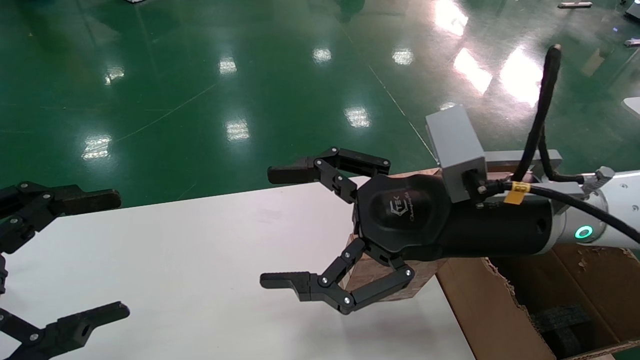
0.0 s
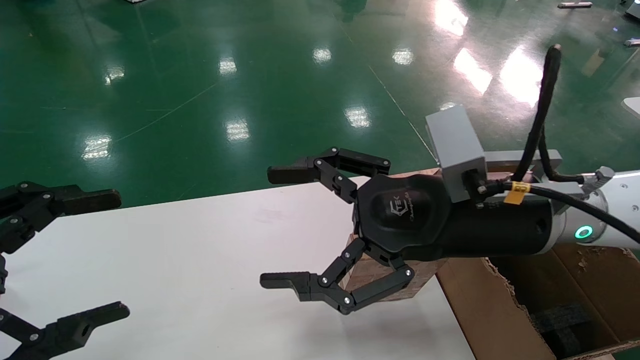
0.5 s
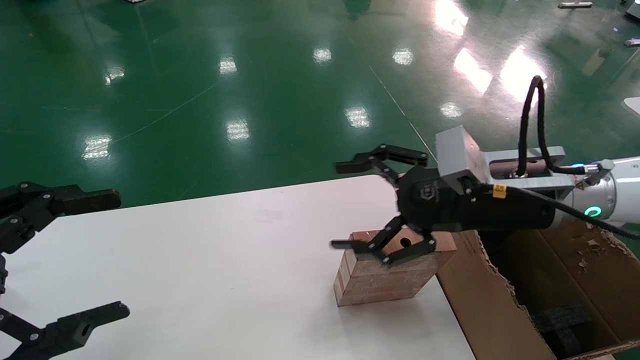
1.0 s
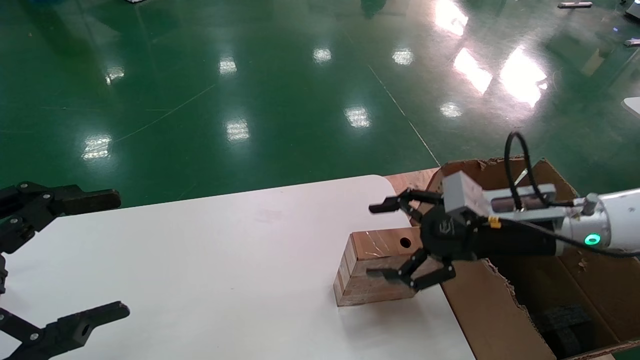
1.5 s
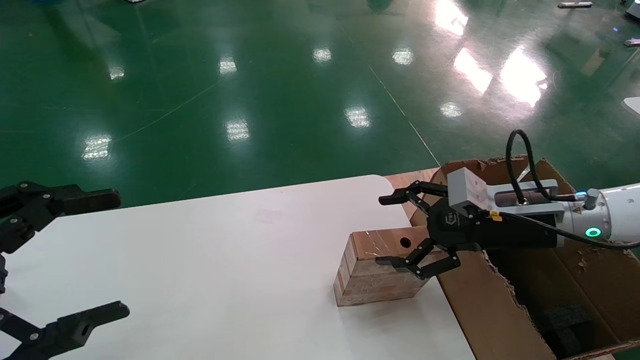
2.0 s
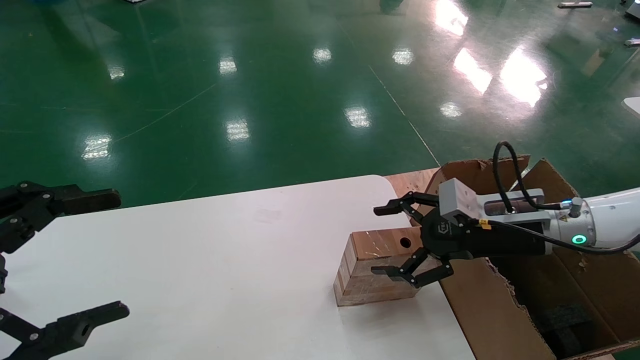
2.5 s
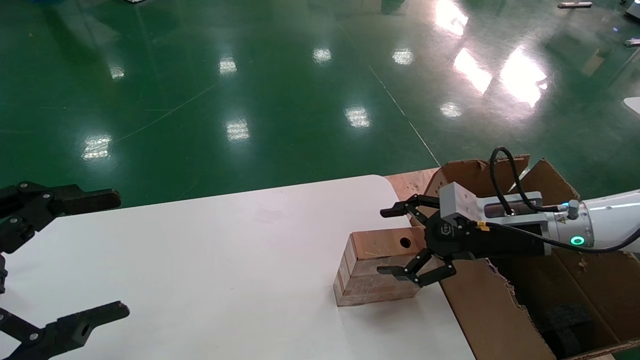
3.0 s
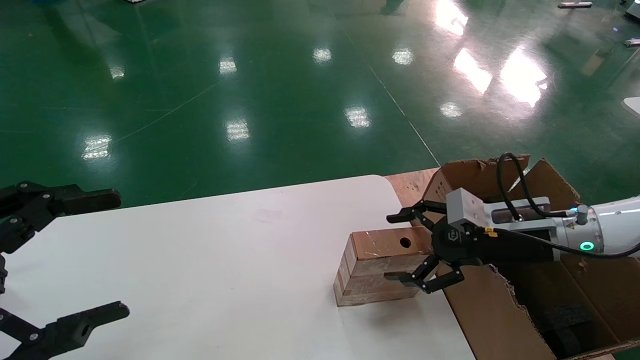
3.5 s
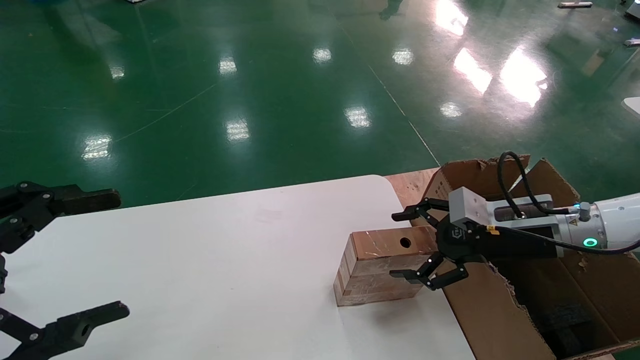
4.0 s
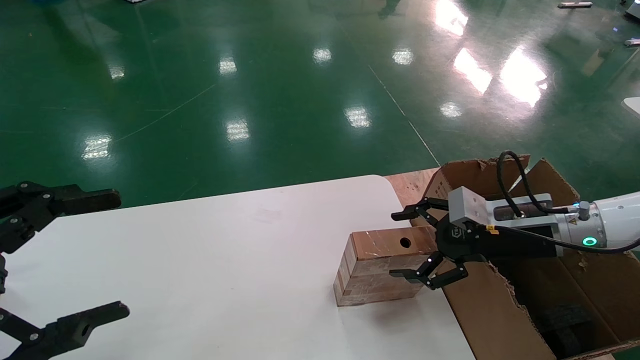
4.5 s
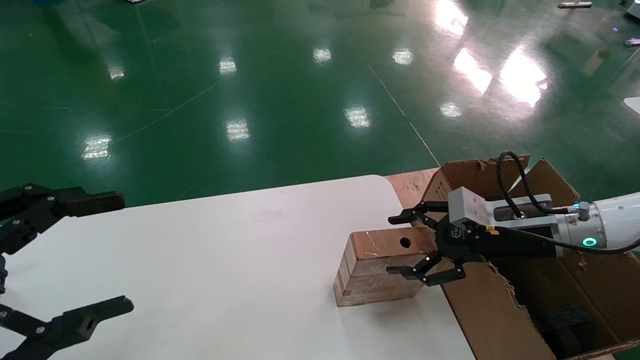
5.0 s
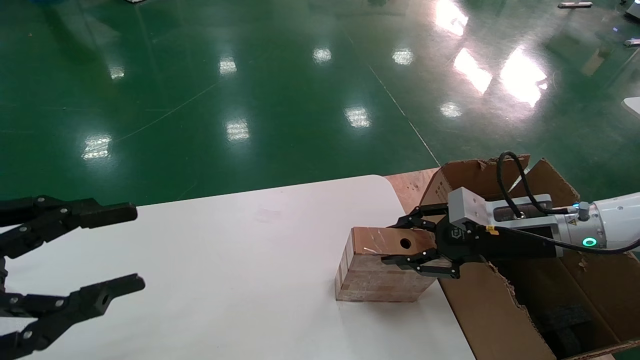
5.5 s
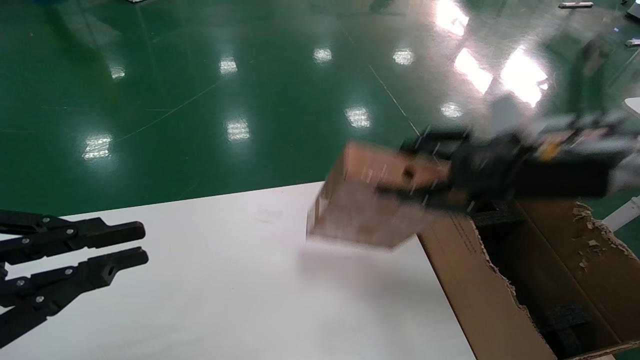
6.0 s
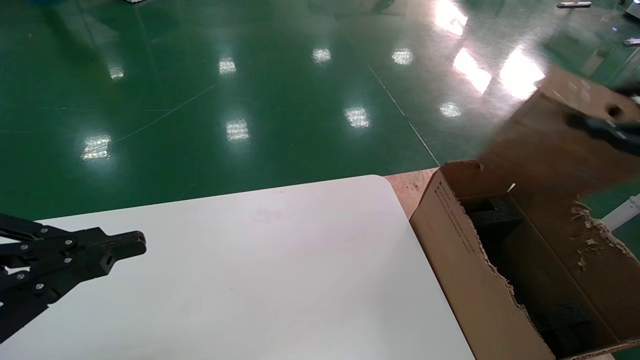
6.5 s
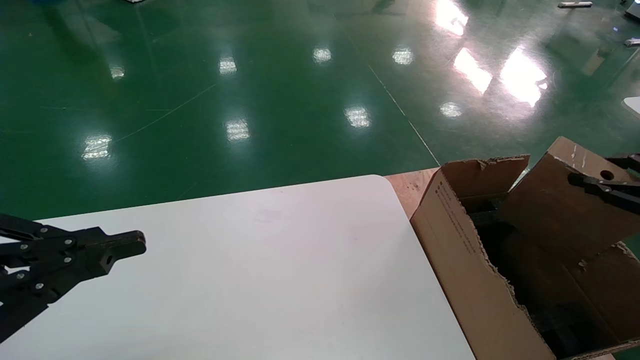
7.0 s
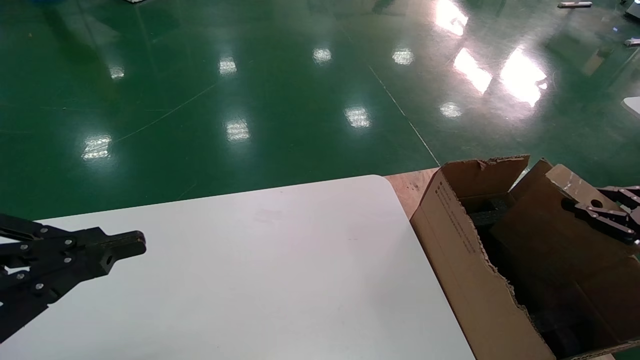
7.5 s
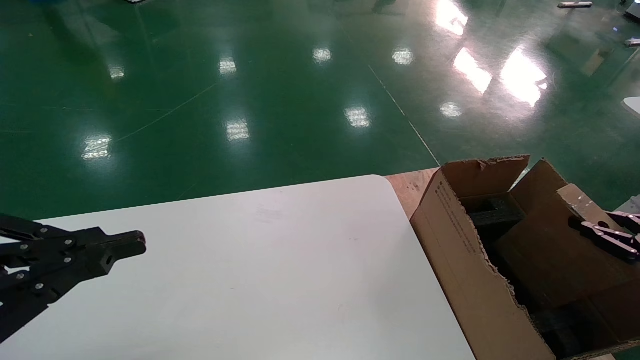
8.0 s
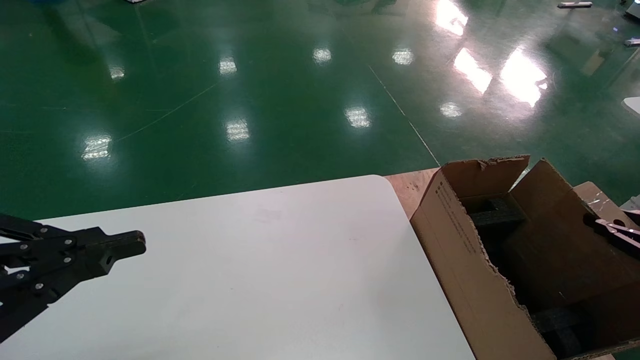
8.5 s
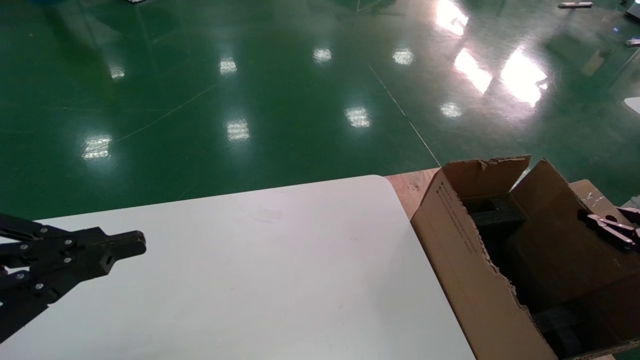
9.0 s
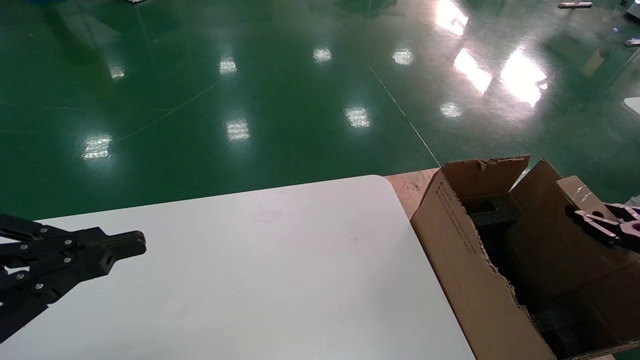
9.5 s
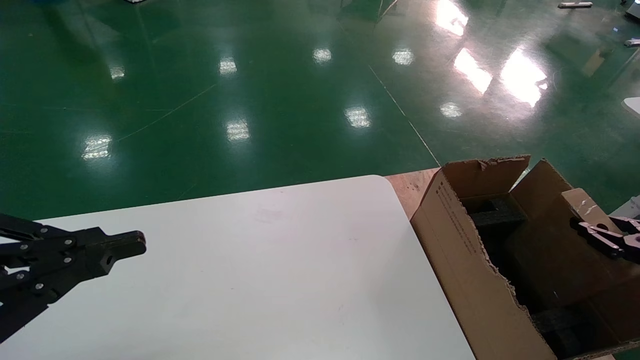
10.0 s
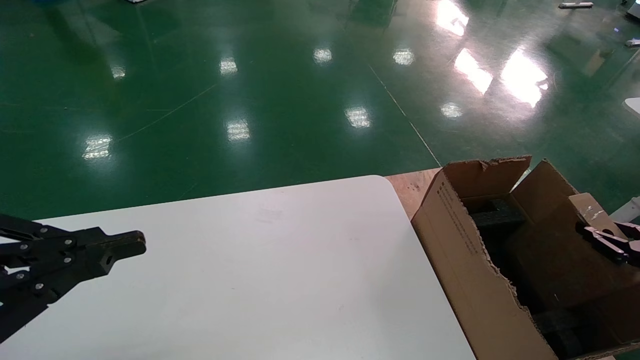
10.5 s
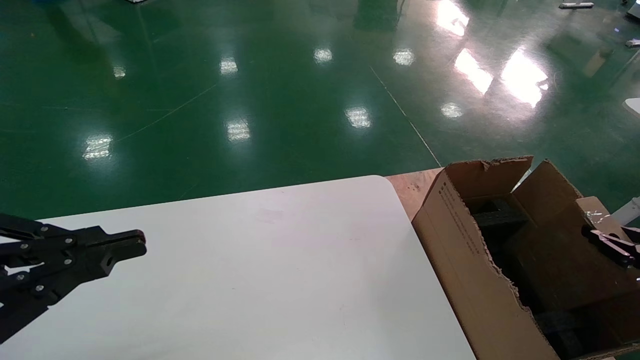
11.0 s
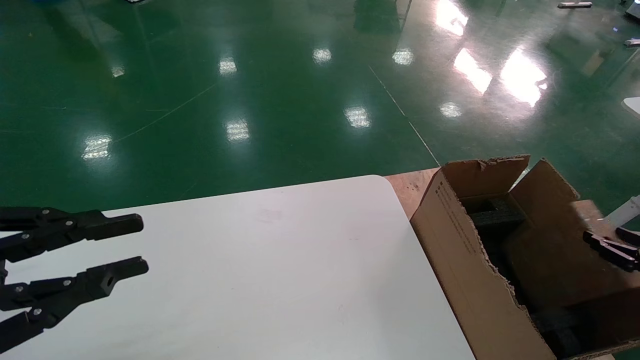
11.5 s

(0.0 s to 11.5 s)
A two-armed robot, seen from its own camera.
Task of the whole recording: put the box on the table into the big box.
Step, 1.5 s - 5.5 s: Pick up the mouse and the power cord paper box.
0.0 s - 2.0 s: The right gripper heads to the right, downward and forward, covering some 15 cm.
2.0 s - 4.0 s: The grippers make only small movements.
4.0 s - 6.0 s: The right gripper moves upward, approximately 10 cm, and closes, while the left gripper closes up.
6.0 s - 7.5 s: The right gripper moves to the right and downward, about 25 cm.
7.5 s - 9.5 s: The grippers stay close to where they were, moving slightly.
9.5 s - 11.5 s: The grippers move only a little.

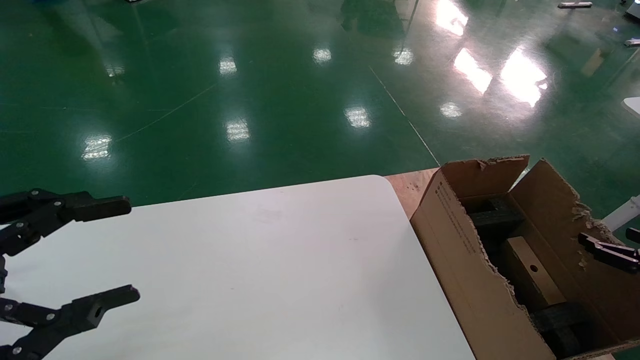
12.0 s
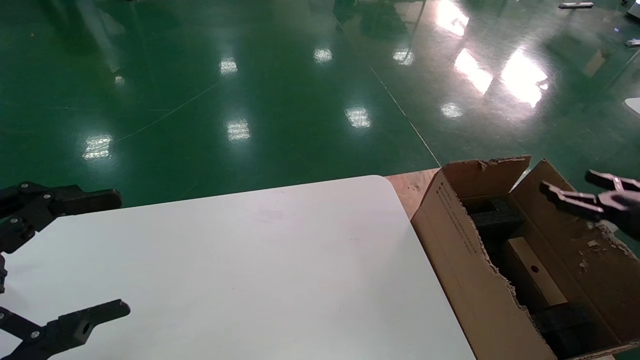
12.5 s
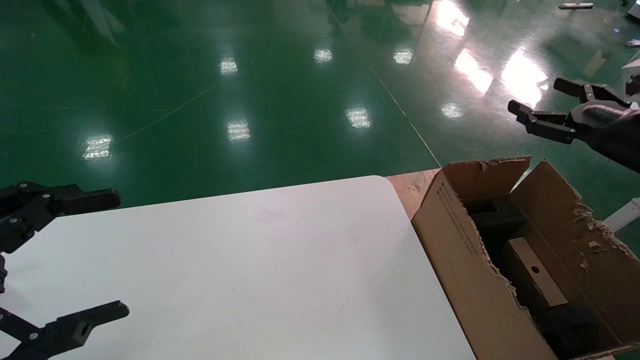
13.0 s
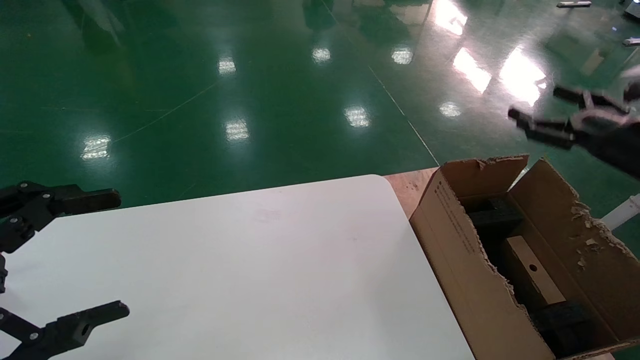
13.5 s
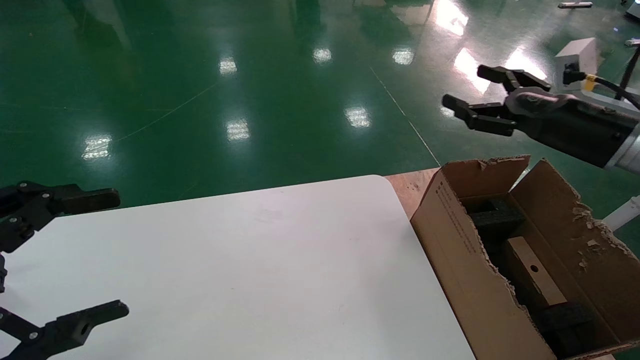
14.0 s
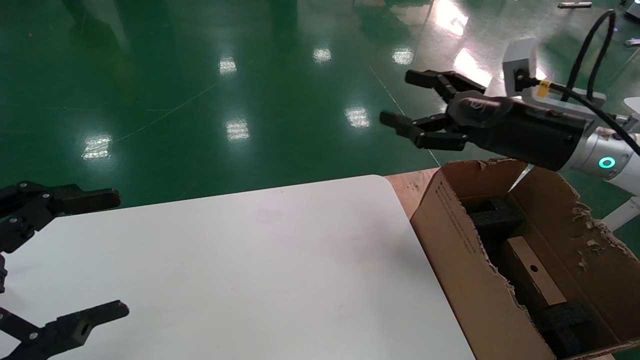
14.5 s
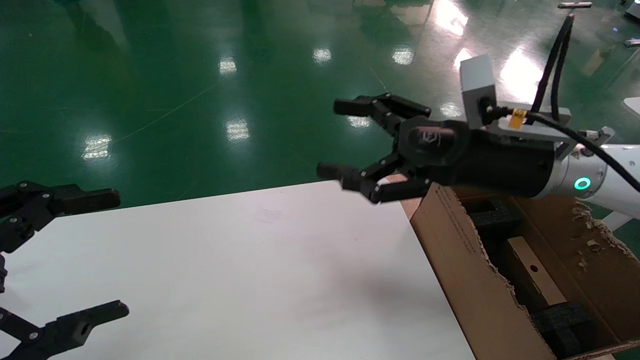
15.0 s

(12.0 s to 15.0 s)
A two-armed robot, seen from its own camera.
Task of the whole recording: put the box on the table into the big box.
12.0 s - 13.5 s: The left gripper opens its fingers. Meanwhile the right gripper travels upward, forward and to the left by roughly 20 cm, and opens.
13.5 s - 15.0 s: The right gripper heads to the left, covering roughly 25 cm.
